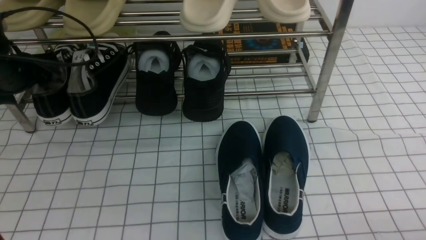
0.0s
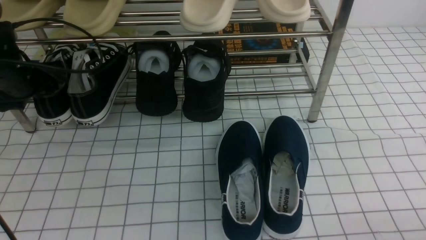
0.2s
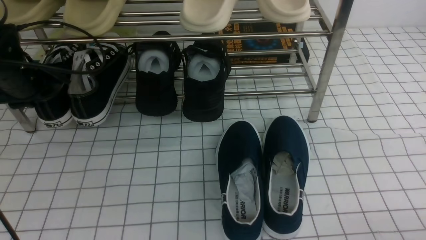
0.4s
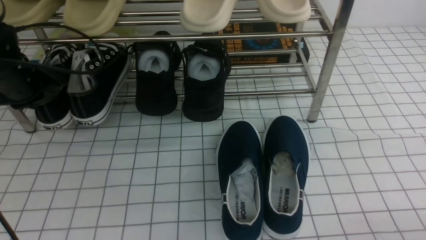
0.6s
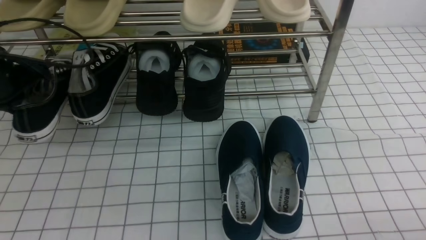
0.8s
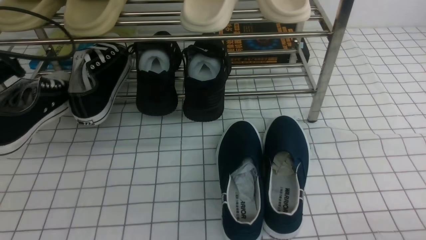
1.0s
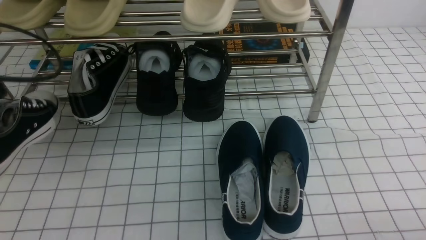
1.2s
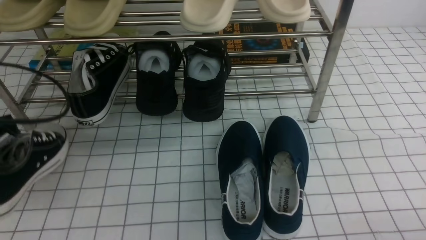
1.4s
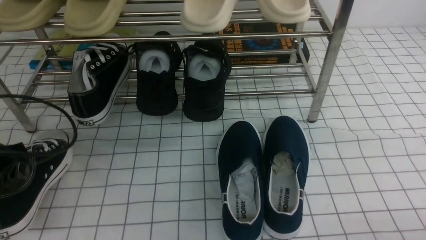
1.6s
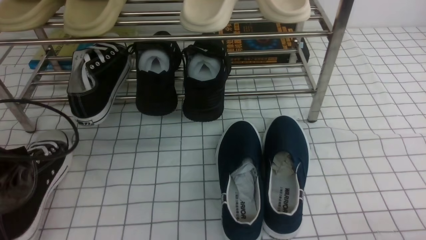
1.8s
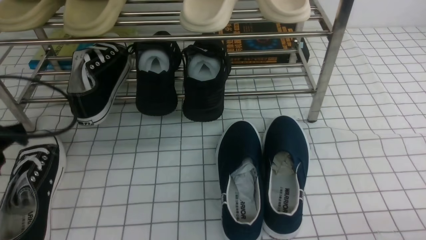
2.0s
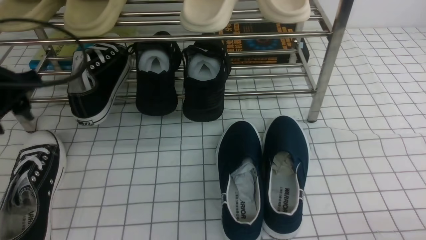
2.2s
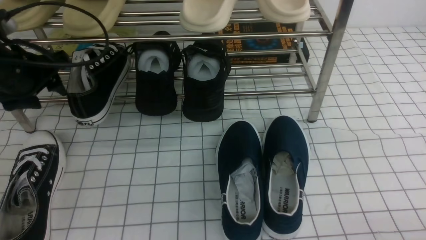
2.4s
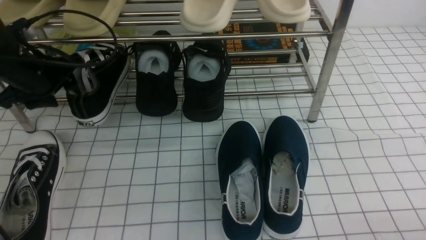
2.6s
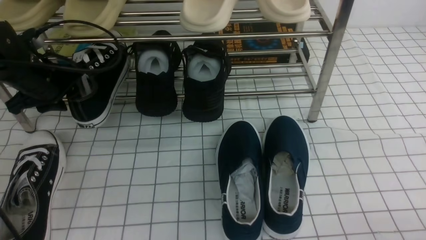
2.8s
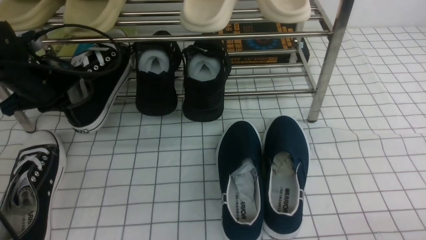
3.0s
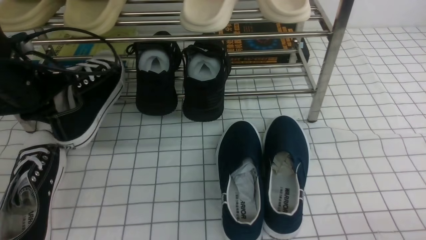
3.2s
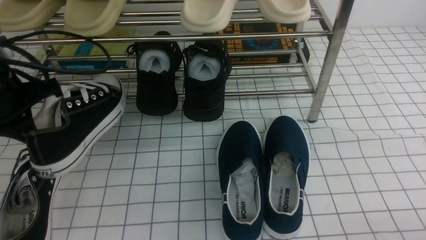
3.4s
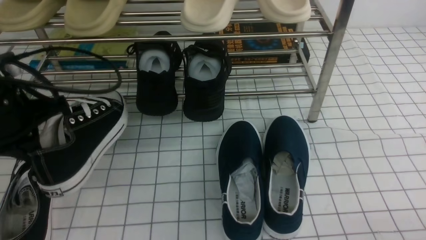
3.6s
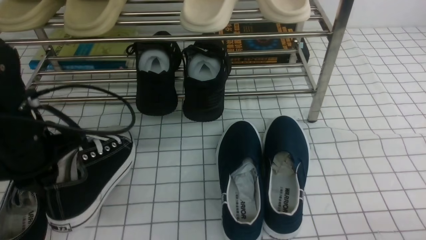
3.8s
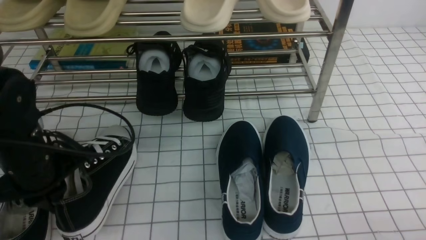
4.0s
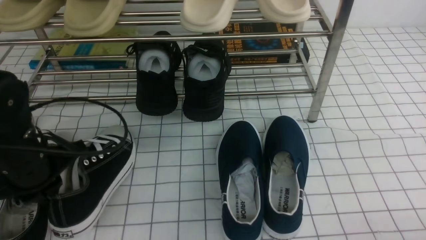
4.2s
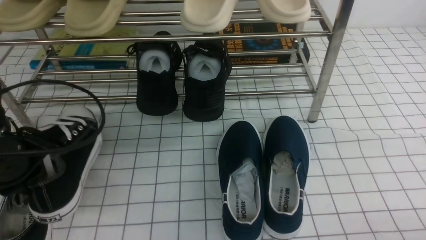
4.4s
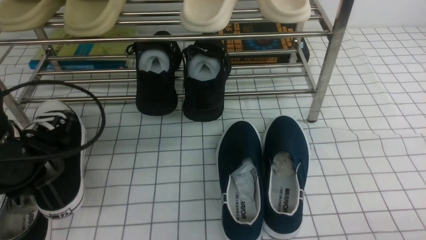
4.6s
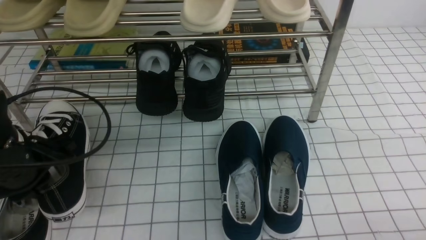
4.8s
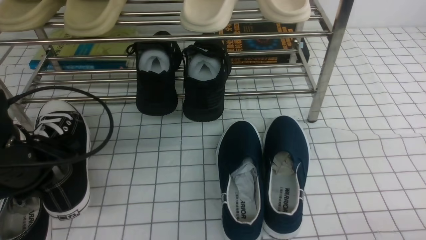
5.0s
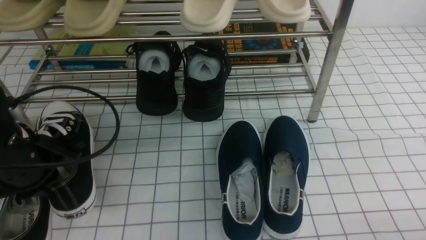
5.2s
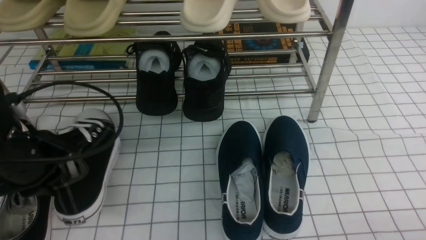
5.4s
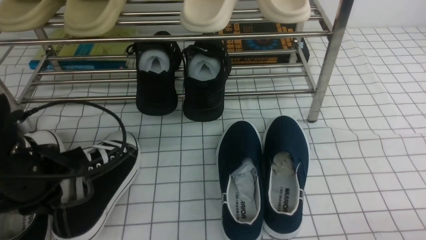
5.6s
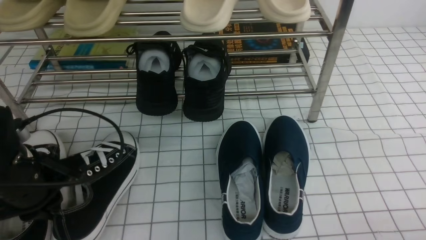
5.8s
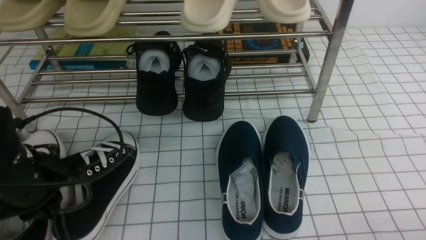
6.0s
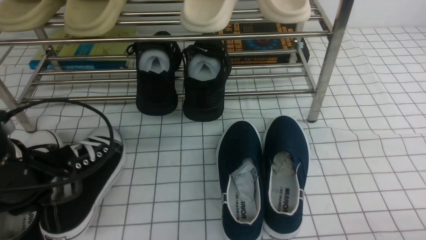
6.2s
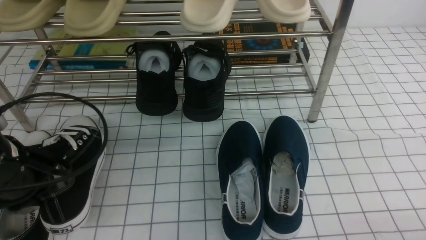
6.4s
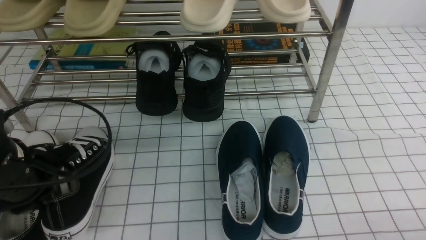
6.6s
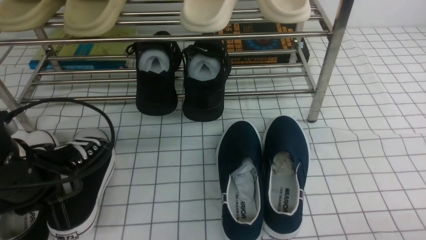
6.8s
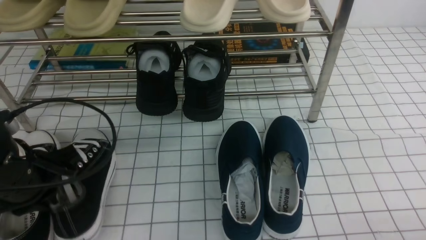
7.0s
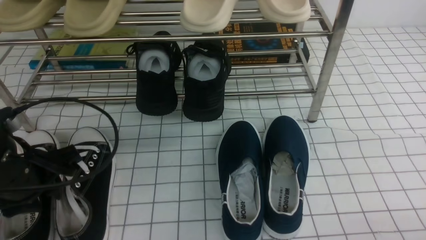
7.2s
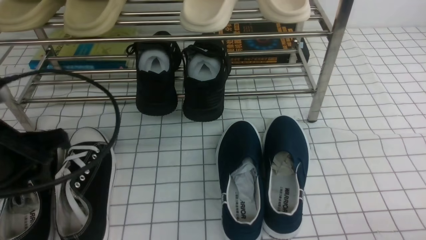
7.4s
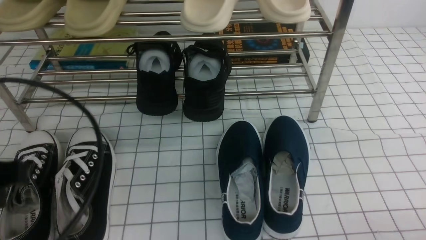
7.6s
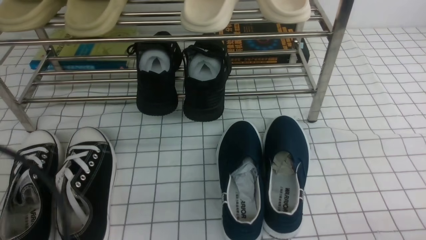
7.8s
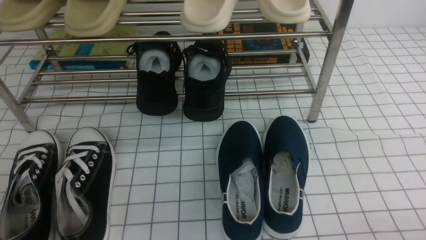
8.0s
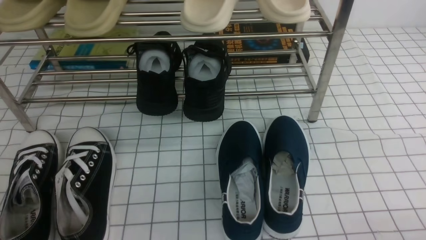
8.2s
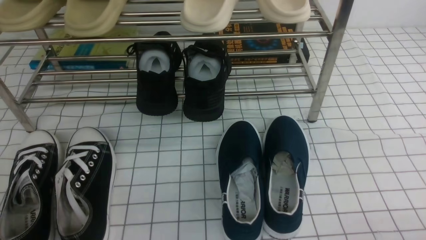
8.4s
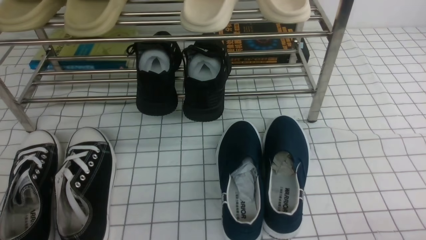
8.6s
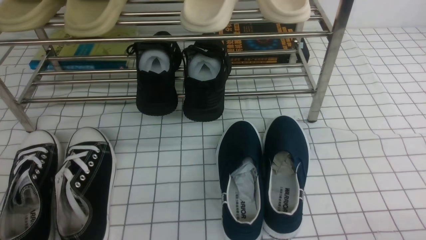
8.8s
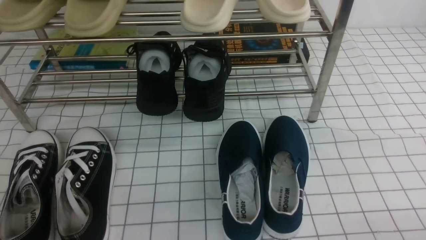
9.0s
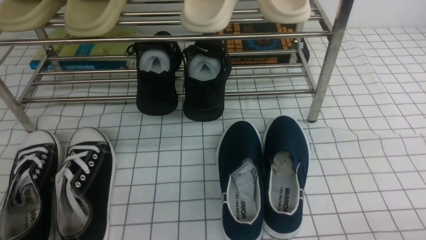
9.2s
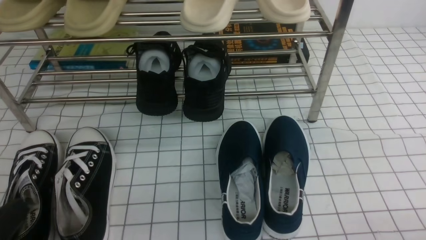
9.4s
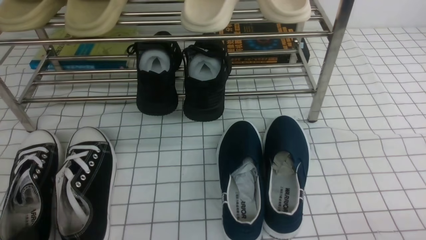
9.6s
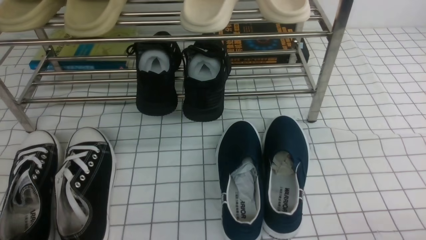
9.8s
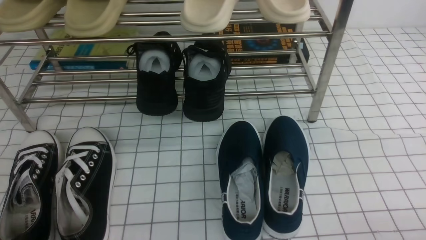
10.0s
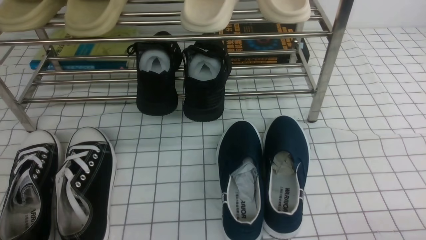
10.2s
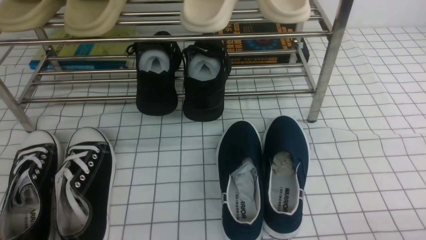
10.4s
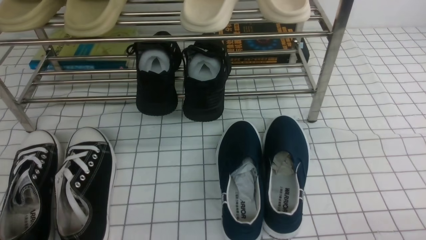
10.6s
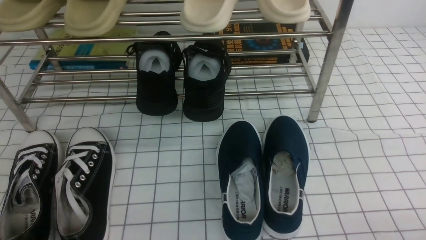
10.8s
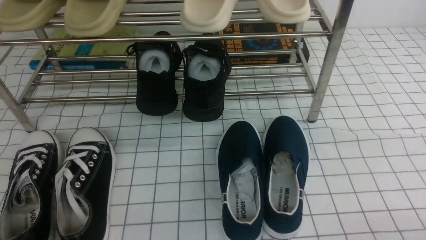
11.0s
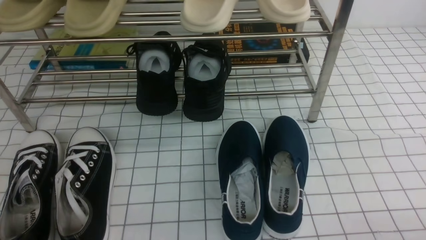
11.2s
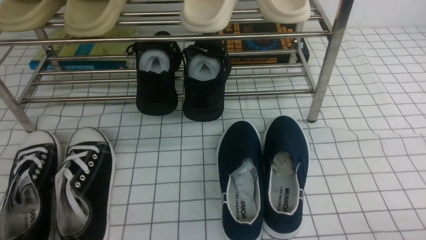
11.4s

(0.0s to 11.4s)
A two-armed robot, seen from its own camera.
Step, 0.6s - 2.0s: Use your left arm to remove the clamped shoe from the shoe rack and put it down.
Step, 2.4s - 2.8s: use the left arm to clamp a shoe on the left side of the shoe rack.
Step, 3.0s - 7.2s: Use your left arm to remove the clamped shoe from the shoe rack and put it down.
0.0s - 1.4s: The left gripper goes approximately 15 cm backward, and closes its fingers.
1.4s - 2.8s: The left gripper goes approximately 15 cm forward, and opens up.
2.8s - 4.2s: The left gripper moves backward, roughly 15 cm, and closes its fingers.
4.2s - 5.6s: The grippers move only a little.
5.6s - 7.2s: The left gripper opens.
7.2s - 8.6s: The left gripper travels backward by approximately 20 cm, and closes.
10.0s - 11.4s: Both grippers stay about where they are.

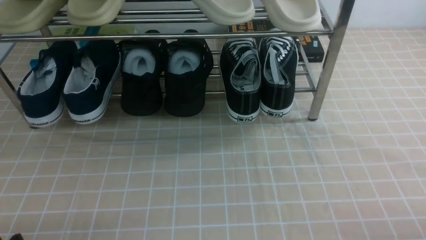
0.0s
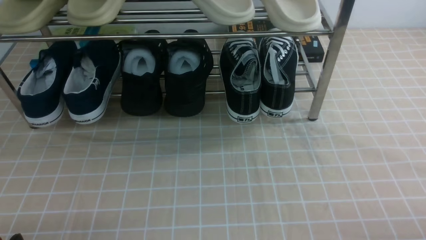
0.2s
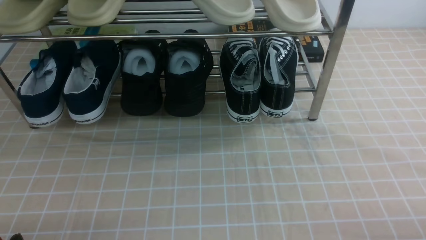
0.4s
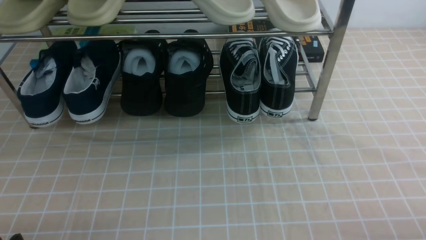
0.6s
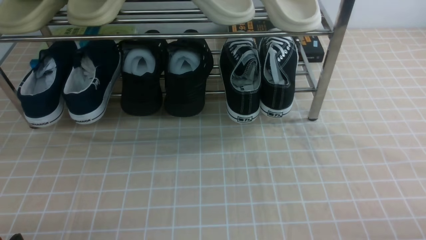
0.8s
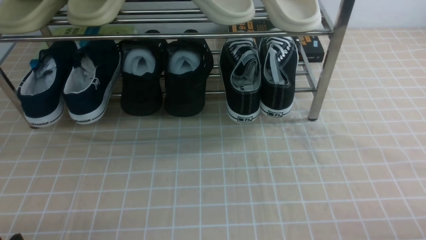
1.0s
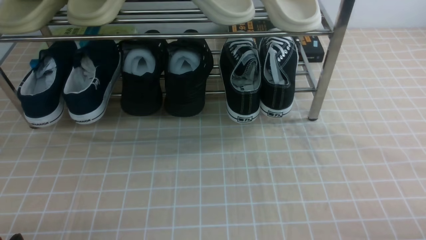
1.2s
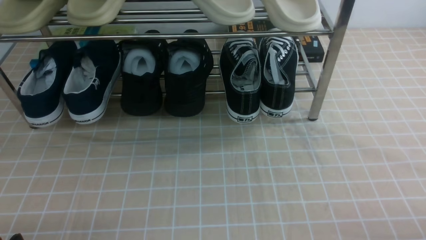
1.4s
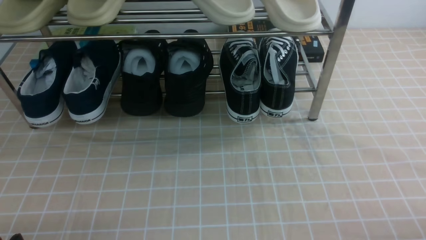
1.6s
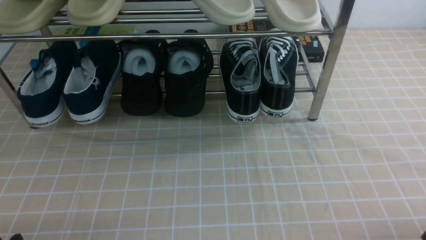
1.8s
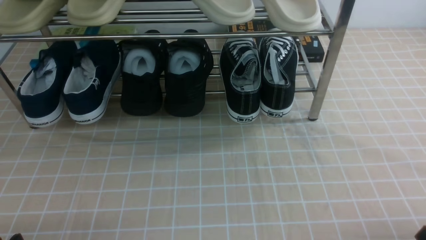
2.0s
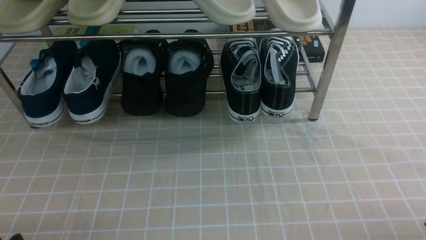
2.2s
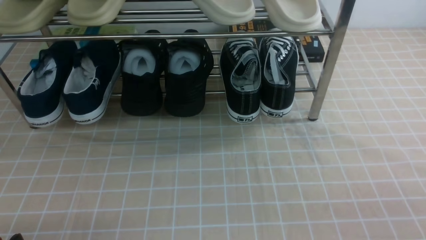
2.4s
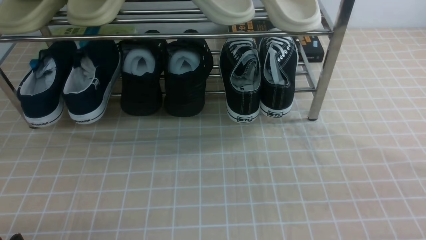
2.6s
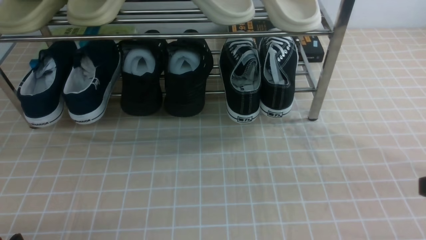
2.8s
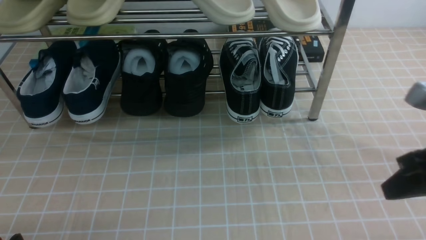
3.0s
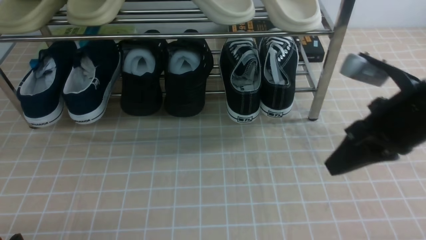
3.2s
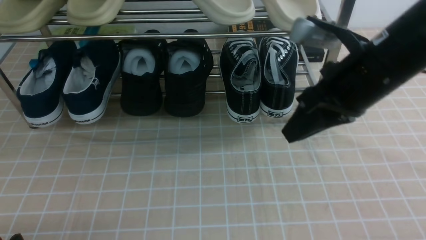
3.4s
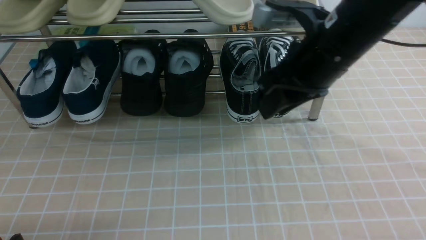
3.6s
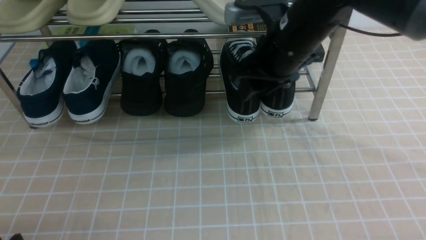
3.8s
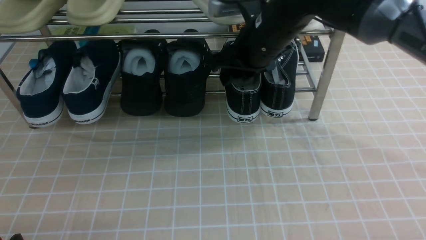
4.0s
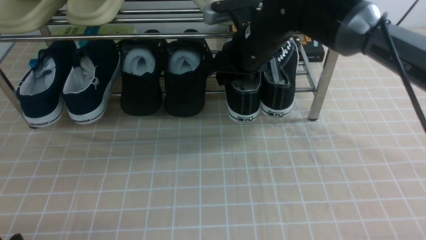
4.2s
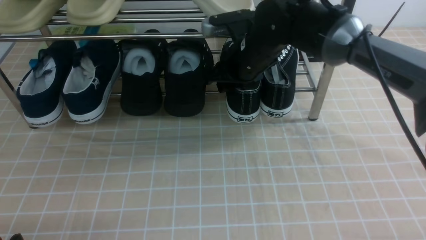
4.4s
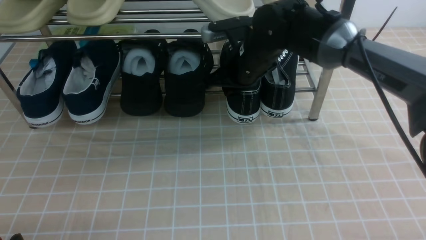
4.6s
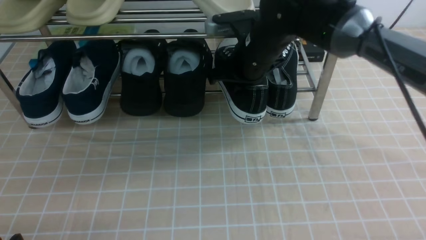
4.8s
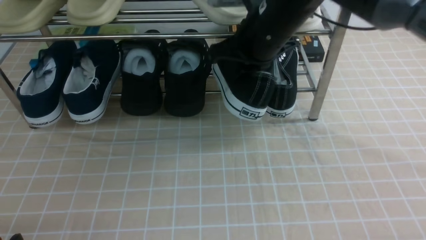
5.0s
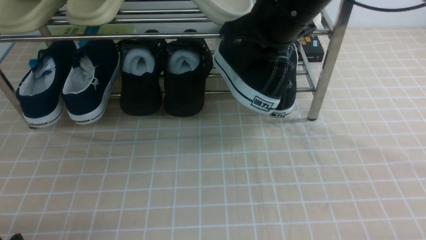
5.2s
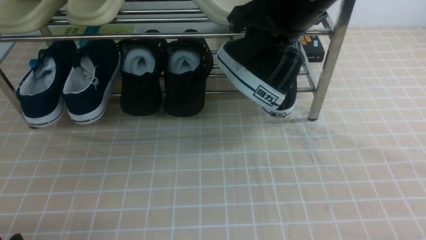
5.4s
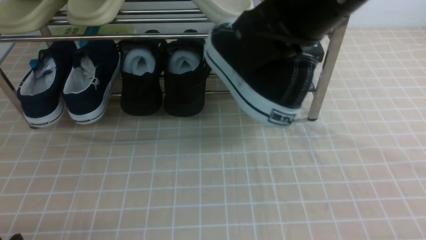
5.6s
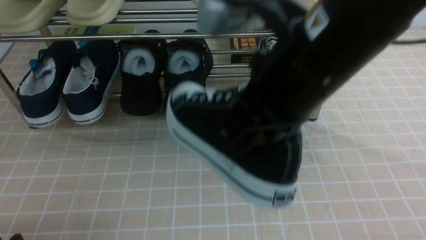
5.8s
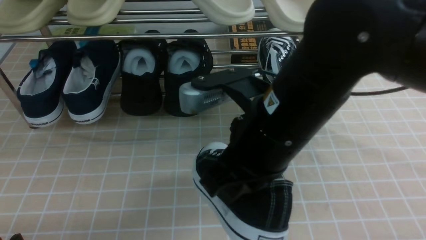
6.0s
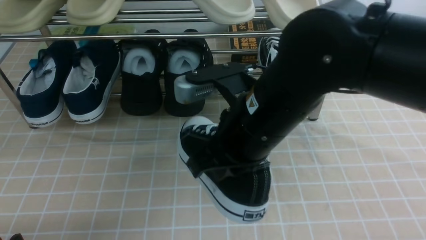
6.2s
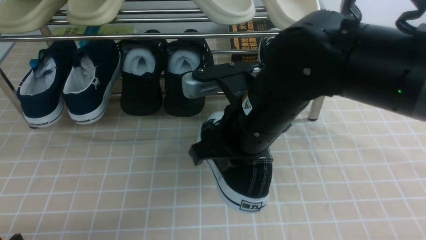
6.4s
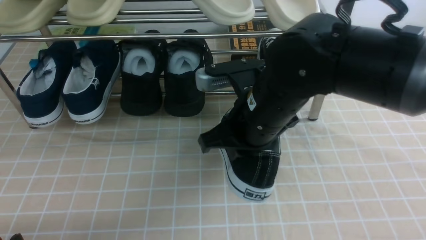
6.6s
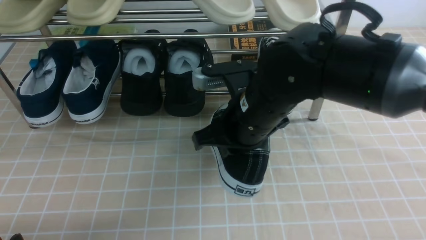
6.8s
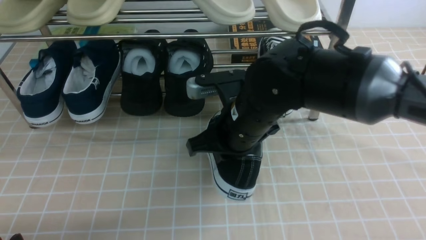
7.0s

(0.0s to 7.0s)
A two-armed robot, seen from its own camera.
Step, 0.0s - 4.6s: use the right arm to clamp a shoe on the right side of the shoe rack.
0.0s - 1.4s: Both grippers stay about where they are.
2.8s - 4.2s: The right gripper moves forward and to the left, some 35 cm, and opens its fingers.
4.2s - 5.6s: The right gripper is displaced backward and upward by some 20 cm, and closes up.
5.6s - 7.0s: The right gripper moves downward, roughly 15 cm.
